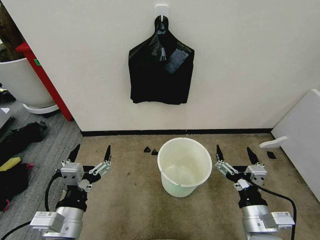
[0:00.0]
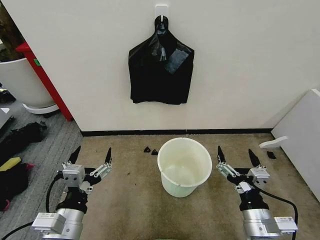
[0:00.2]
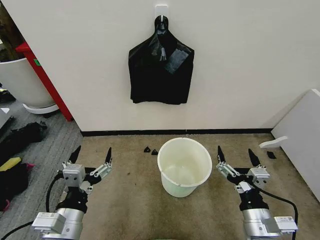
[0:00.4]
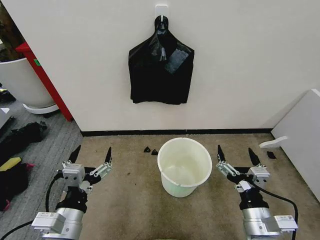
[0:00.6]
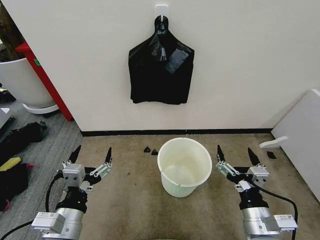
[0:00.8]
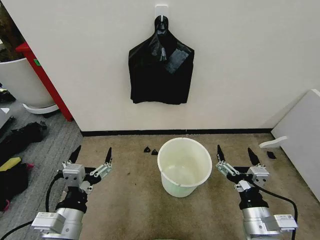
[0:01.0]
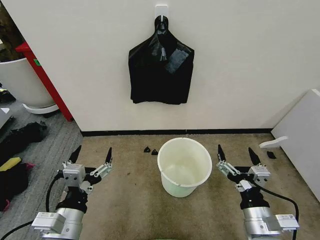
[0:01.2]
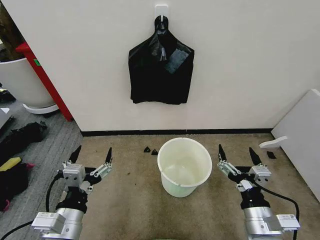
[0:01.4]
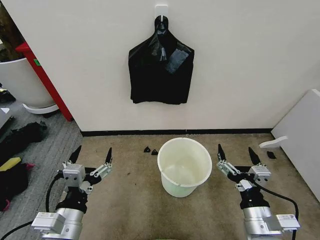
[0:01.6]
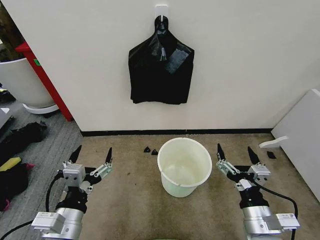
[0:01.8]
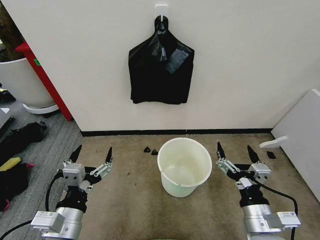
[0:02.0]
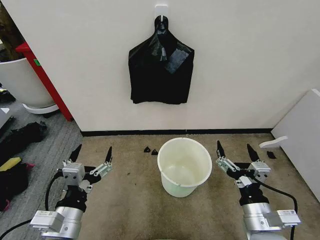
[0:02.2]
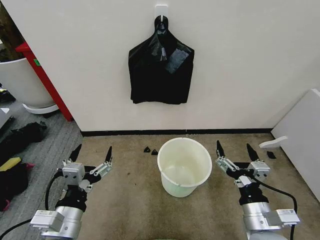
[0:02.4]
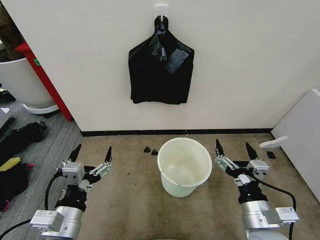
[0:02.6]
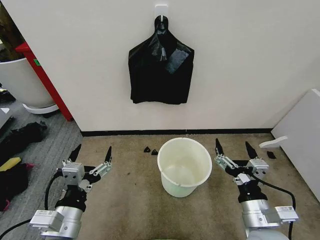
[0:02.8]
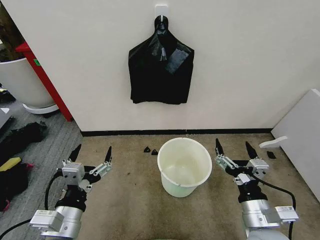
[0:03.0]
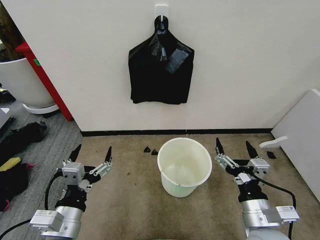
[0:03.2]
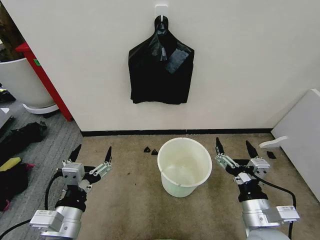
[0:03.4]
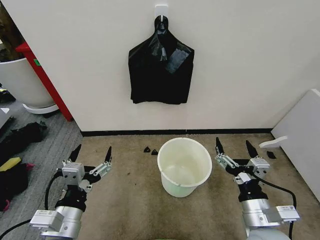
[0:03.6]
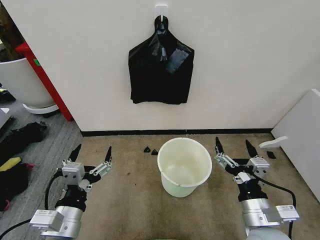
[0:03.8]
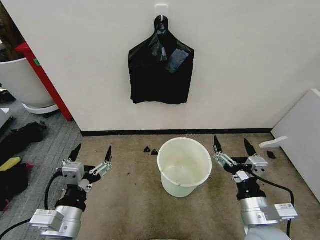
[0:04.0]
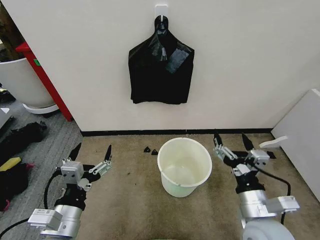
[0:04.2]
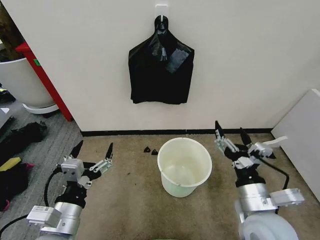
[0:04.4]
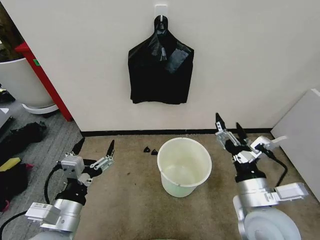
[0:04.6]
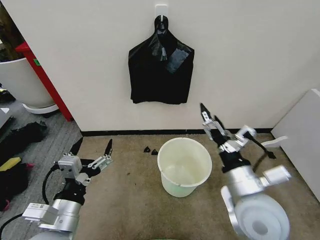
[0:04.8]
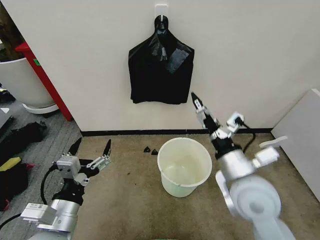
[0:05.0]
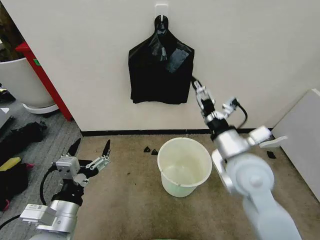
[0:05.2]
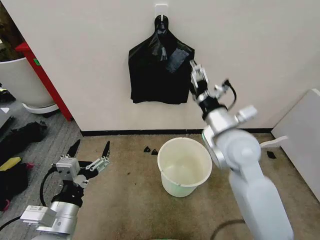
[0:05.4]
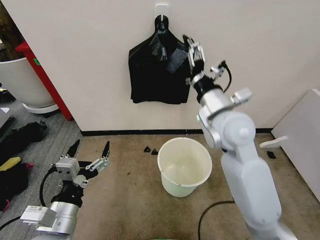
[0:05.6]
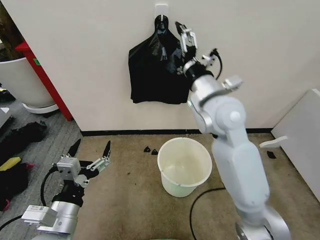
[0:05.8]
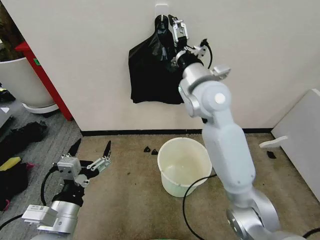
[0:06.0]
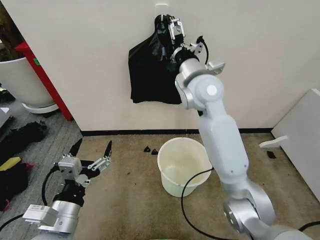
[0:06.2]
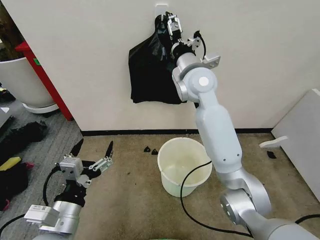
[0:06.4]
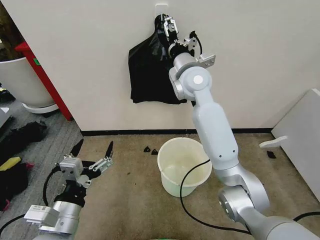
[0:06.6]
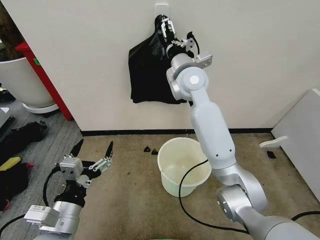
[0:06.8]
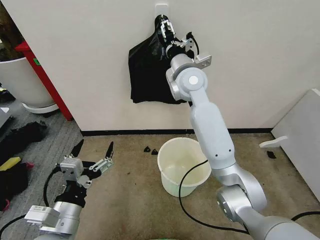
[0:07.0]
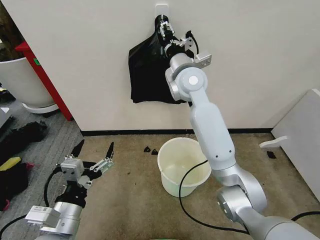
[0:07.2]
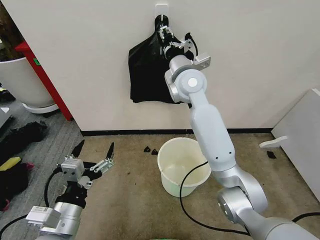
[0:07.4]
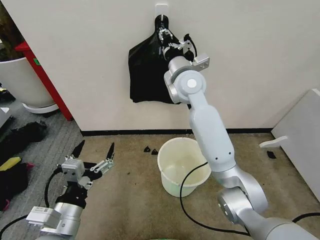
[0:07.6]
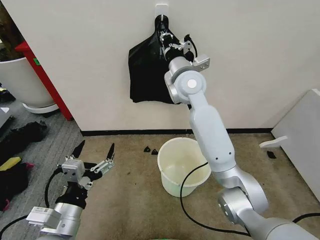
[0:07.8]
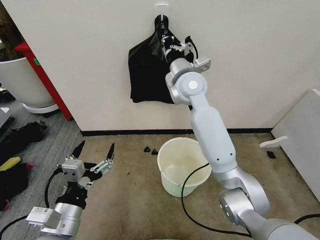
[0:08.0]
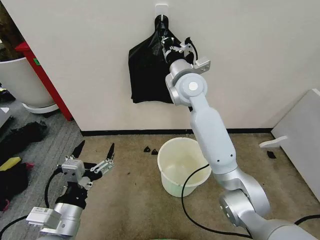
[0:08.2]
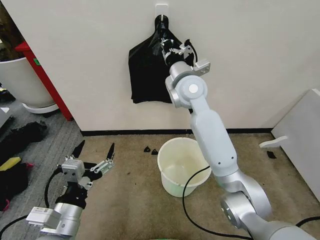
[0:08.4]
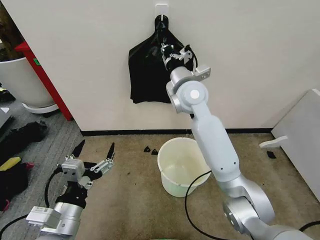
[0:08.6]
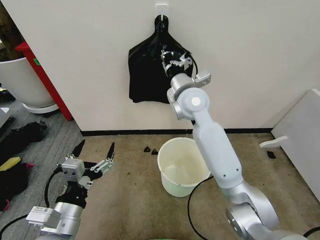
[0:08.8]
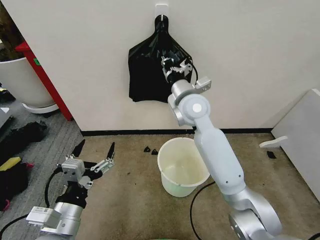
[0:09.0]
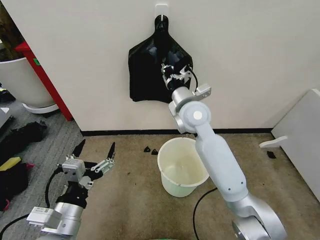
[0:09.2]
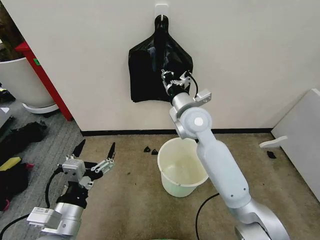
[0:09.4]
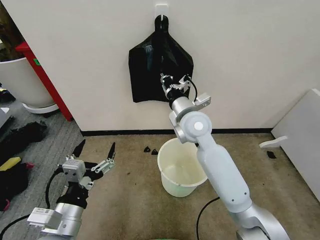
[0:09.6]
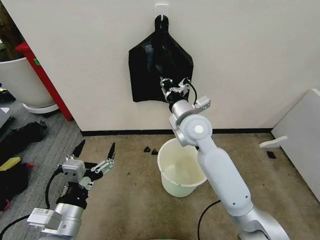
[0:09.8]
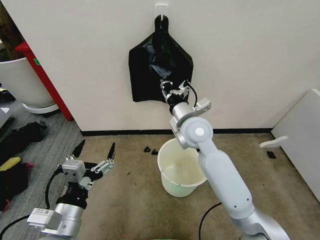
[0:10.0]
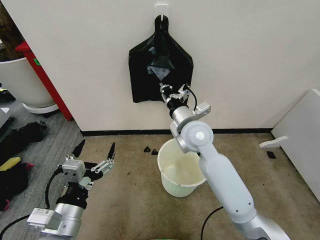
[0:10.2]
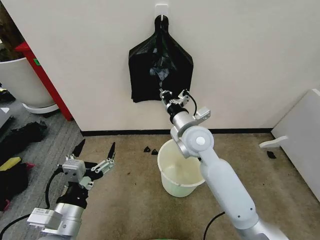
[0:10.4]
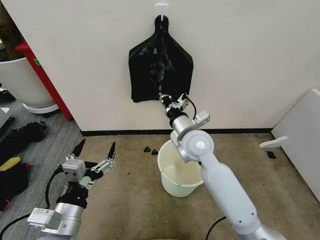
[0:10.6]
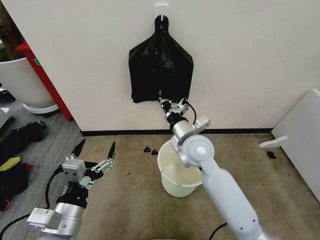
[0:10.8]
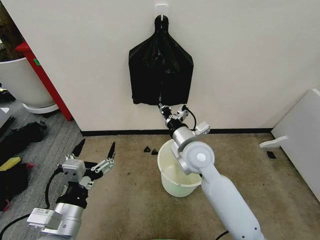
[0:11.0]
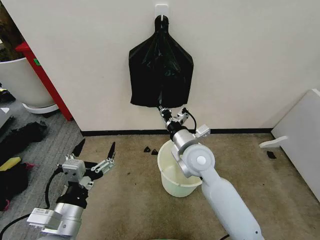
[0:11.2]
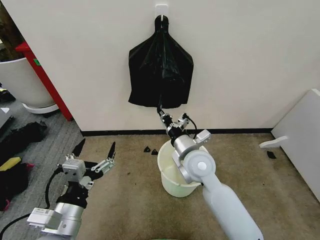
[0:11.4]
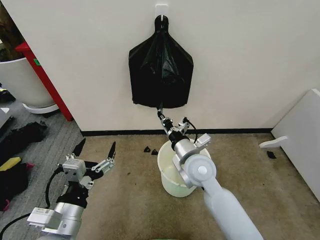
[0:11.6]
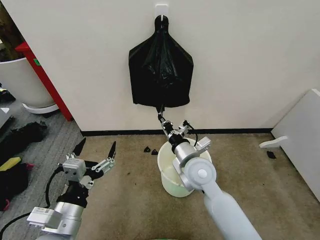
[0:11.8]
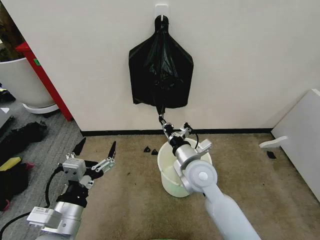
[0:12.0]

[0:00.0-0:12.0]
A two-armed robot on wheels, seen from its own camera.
Task of the whole recording: Place the garbage bag over the trash bin.
0:01.6 to 0:04.4: There are only small adjustments of the grippers.
0:04.4 to 0:06.0: The right gripper moves forward, upward and to the left, roughly 35 cm.
0:06.0 to 0:07.6: The right gripper shifts about 10 cm forward, and closes.
0:07.6 to 0:09.0: The right gripper is displaced downward by approximately 5 cm.
0:09.0 to 0:10.4: The right gripper shifts approximately 10 cm downward and backward.
0:10.4 to 0:12.0: The right gripper goes about 10 cm downward and backward.

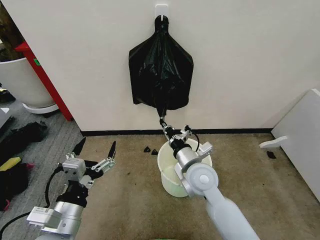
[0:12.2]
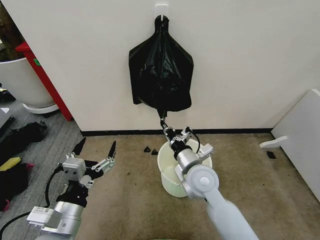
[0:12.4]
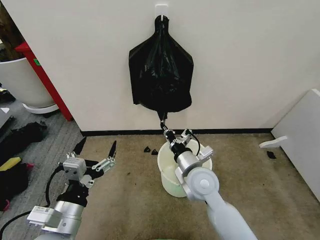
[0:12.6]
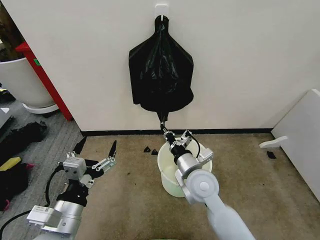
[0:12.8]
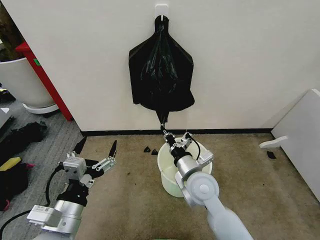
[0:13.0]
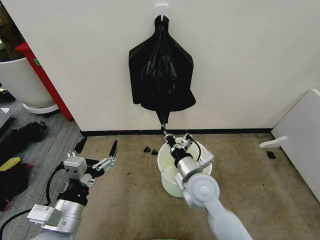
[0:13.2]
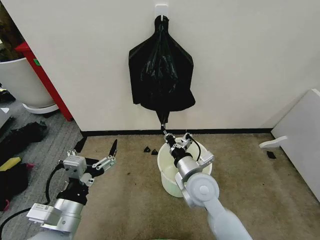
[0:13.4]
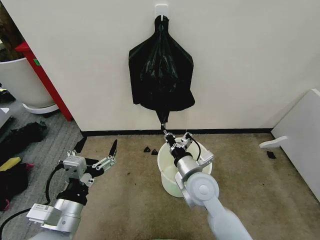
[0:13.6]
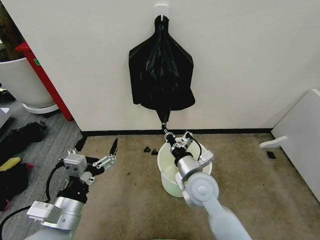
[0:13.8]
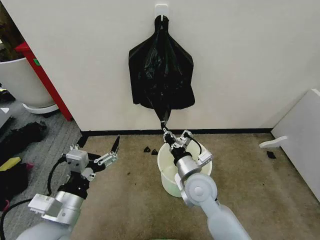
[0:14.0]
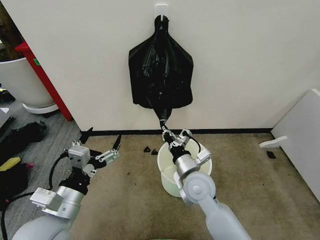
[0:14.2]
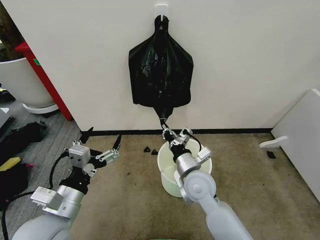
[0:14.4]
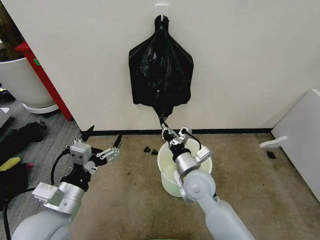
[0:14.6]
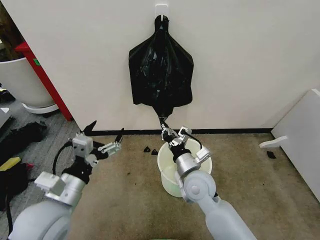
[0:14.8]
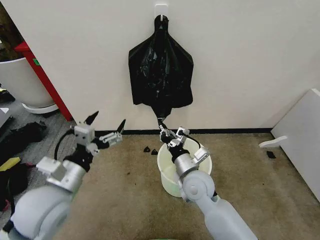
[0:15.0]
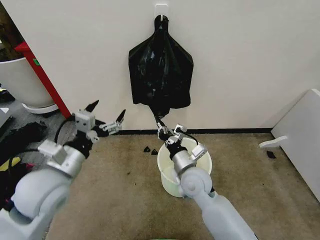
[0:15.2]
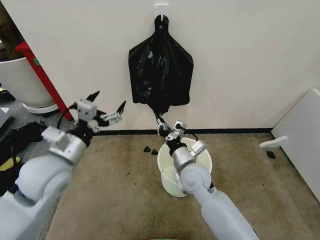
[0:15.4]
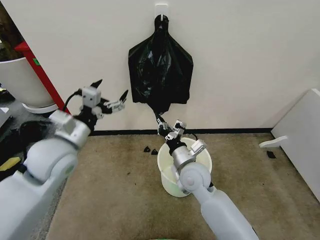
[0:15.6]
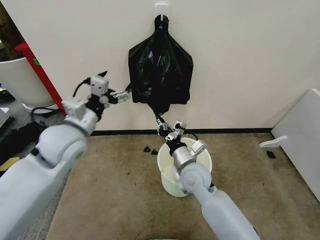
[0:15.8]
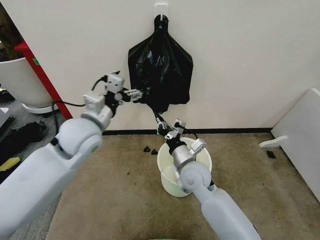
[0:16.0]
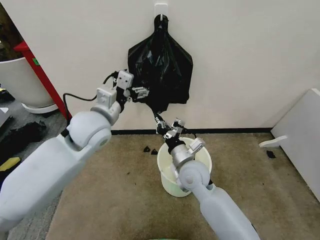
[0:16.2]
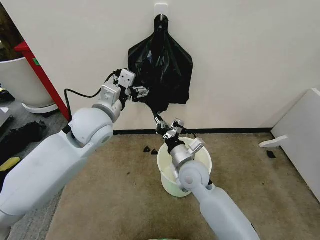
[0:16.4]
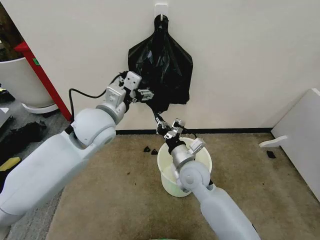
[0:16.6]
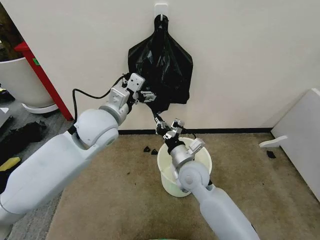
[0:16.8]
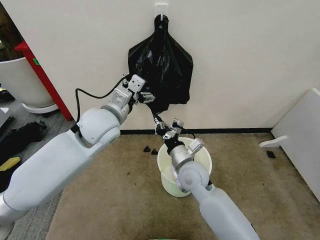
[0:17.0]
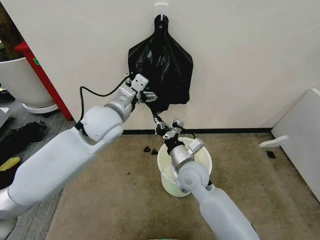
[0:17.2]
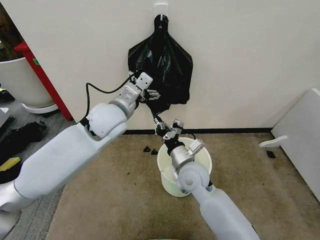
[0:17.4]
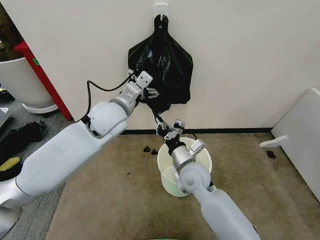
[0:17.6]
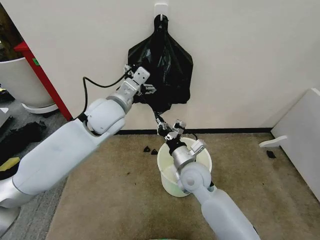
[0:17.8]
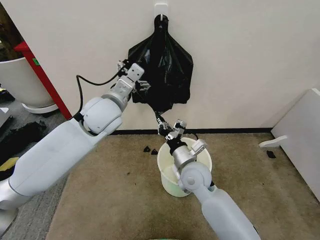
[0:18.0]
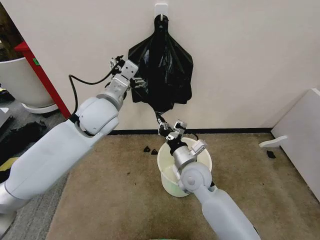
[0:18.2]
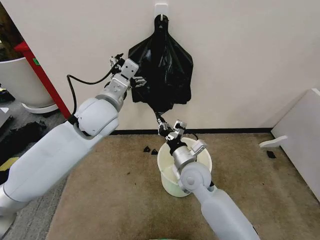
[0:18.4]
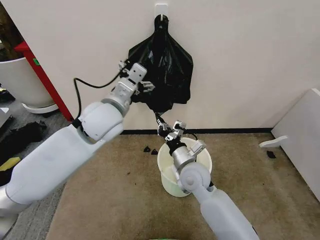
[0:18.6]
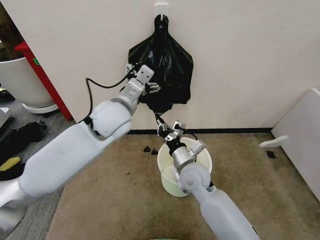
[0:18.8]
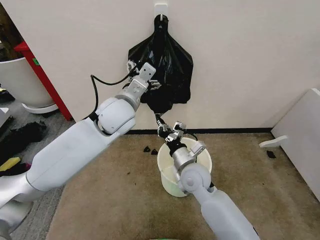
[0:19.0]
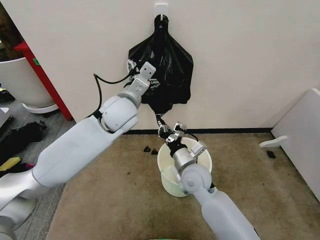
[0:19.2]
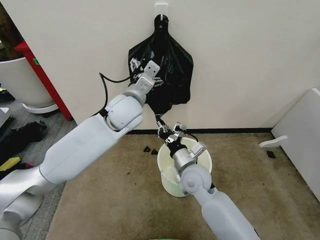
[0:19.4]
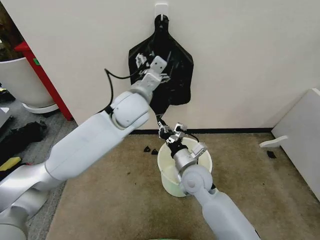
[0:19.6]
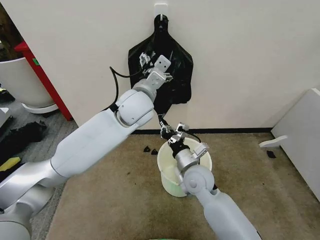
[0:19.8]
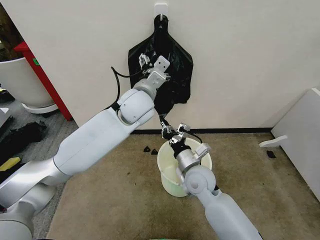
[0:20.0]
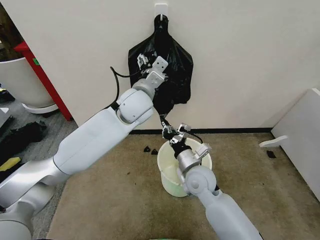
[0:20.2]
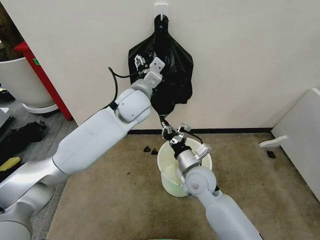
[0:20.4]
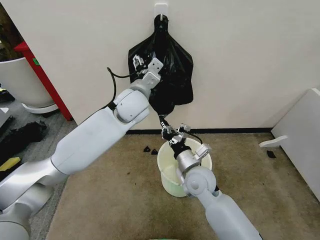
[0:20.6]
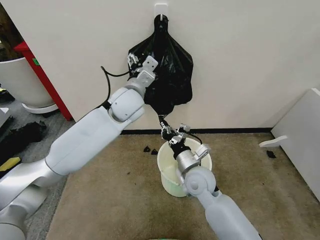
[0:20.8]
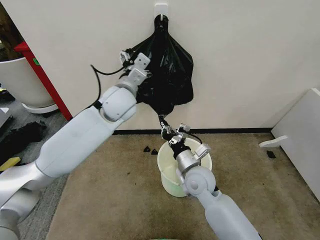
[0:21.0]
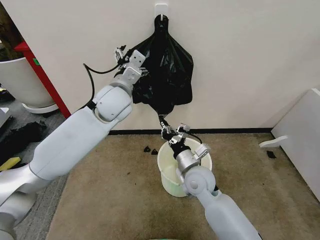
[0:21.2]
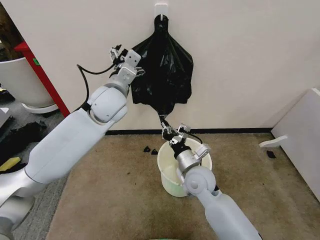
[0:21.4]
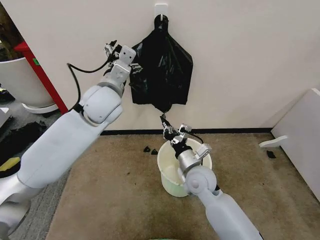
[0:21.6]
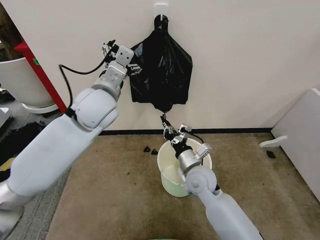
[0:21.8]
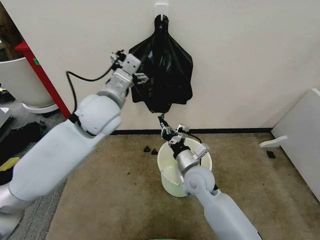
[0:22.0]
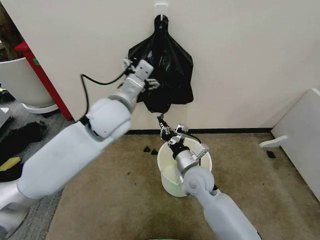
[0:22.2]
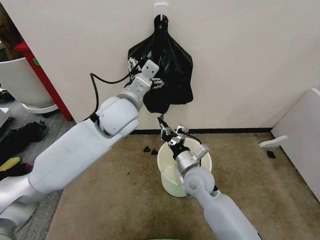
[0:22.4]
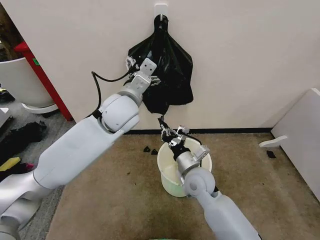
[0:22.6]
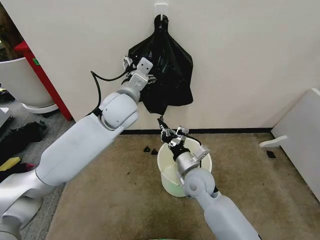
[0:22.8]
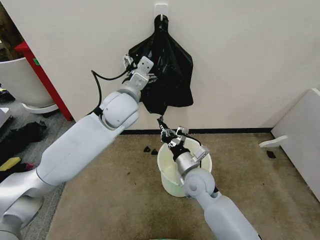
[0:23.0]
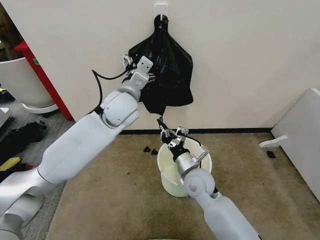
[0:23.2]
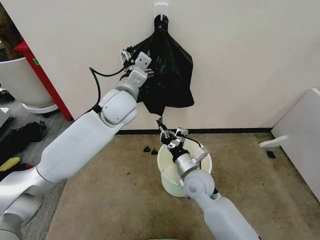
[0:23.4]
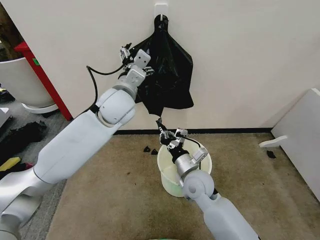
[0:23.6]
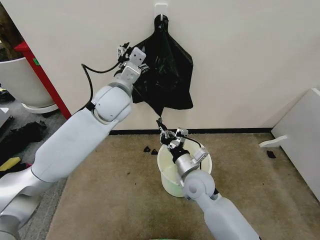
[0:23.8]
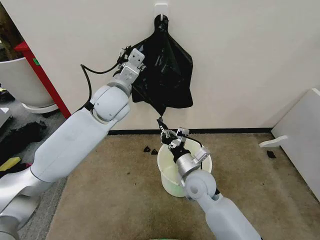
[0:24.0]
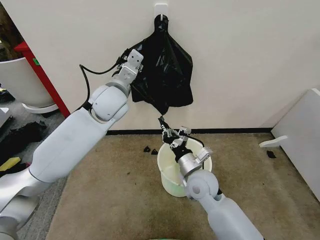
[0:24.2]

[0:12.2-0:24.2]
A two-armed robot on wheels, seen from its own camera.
Task of the whole recording: Place the garbage bag over the trash bin.
0:12.2 to 0:13.8: The grippers stay close to where they were, moving slightly.
0:13.8 to 0:15.2: The left gripper moves forward and upward, approximately 10 cm.
0:15.2 to 0:16.6: The left gripper shifts about 20 cm forward, to the right and upward.
0:16.6 to 0:18.2: The grippers make only small movements.
0:18.2 to 0:19.8: The left gripper goes approximately 10 cm to the right.
0:19.8 to 0:21.2: The left gripper is displaced to the left by approximately 5 cm.
0:22.6 to 0:24.2: The left gripper closes up.
